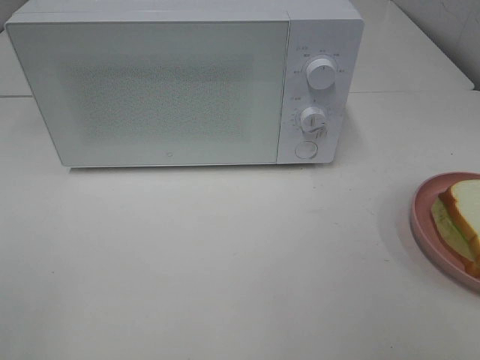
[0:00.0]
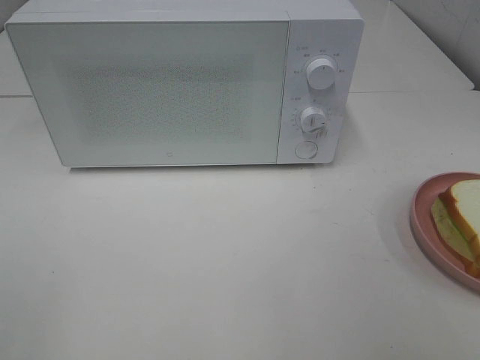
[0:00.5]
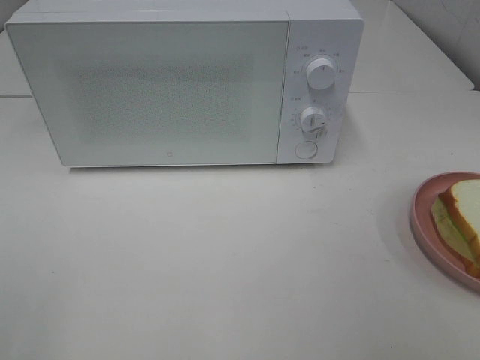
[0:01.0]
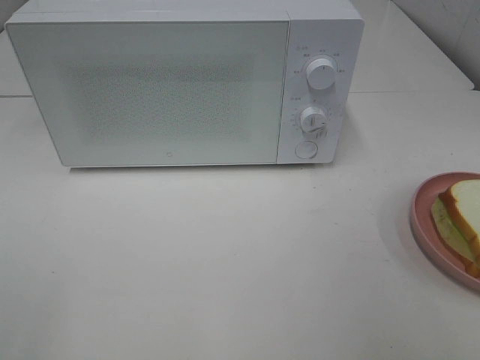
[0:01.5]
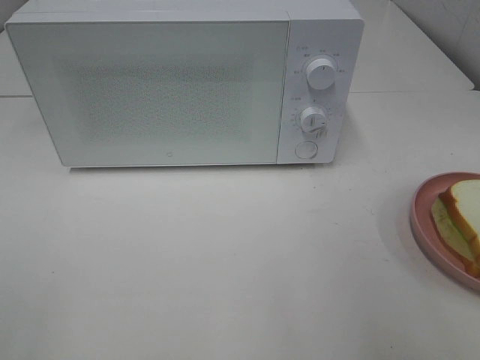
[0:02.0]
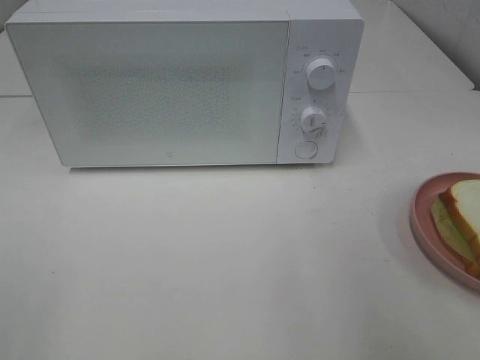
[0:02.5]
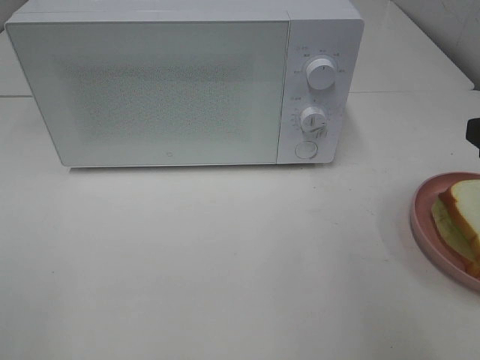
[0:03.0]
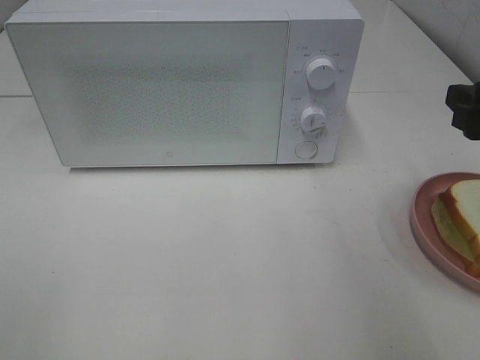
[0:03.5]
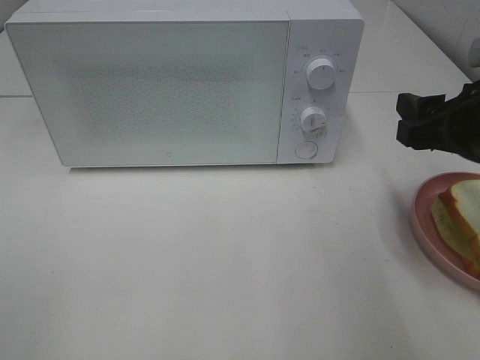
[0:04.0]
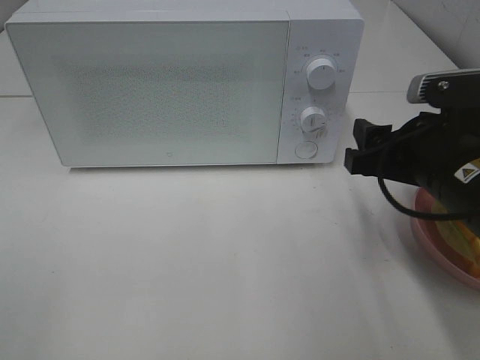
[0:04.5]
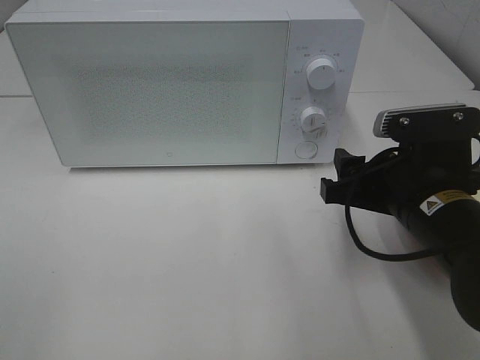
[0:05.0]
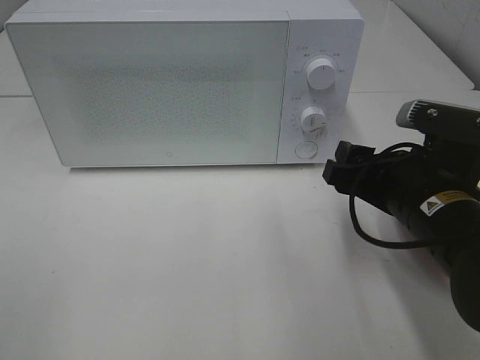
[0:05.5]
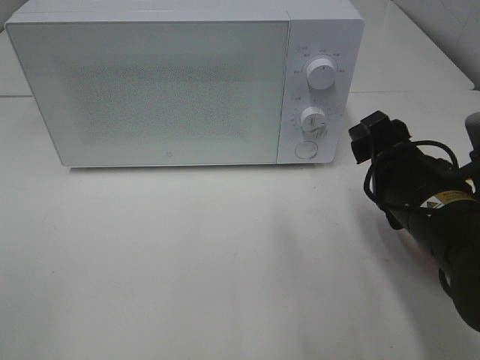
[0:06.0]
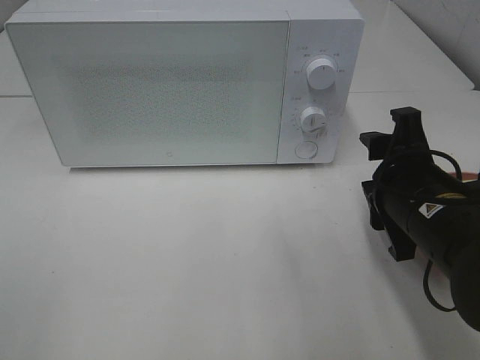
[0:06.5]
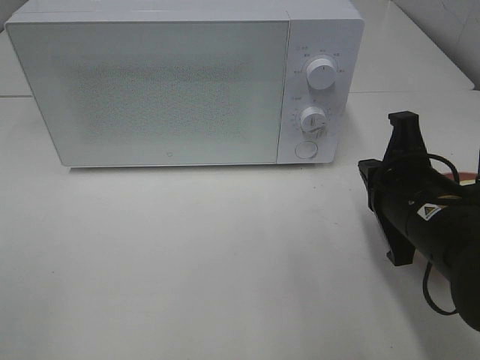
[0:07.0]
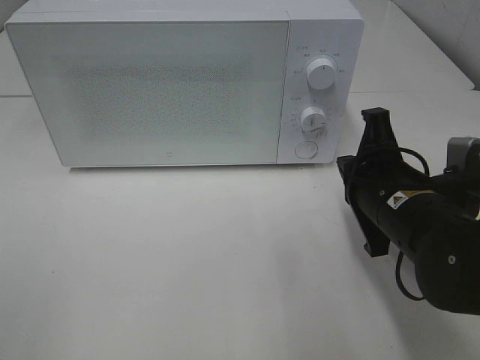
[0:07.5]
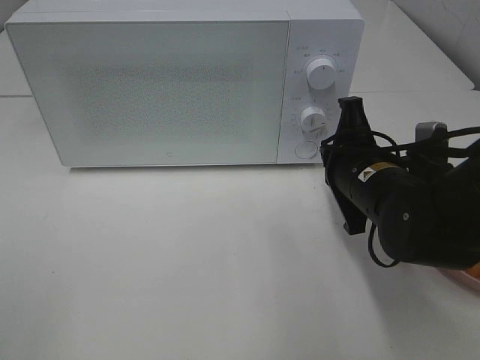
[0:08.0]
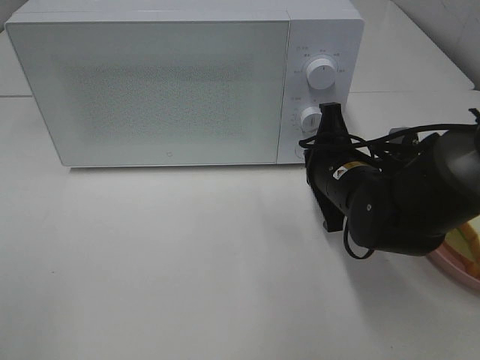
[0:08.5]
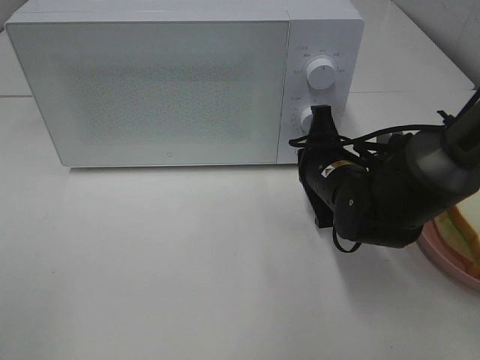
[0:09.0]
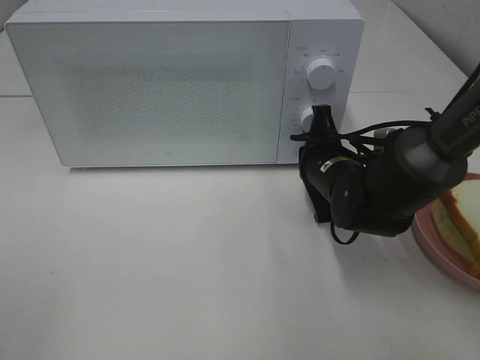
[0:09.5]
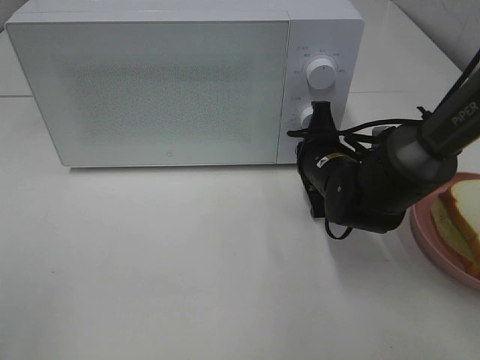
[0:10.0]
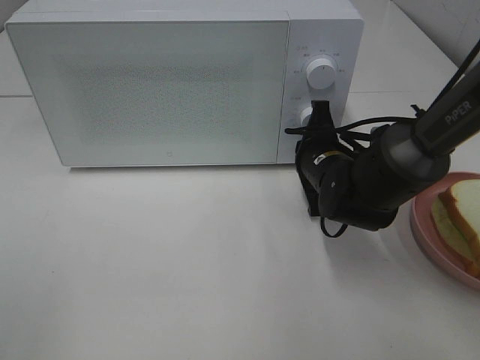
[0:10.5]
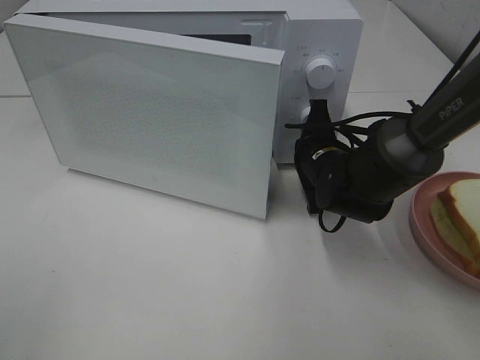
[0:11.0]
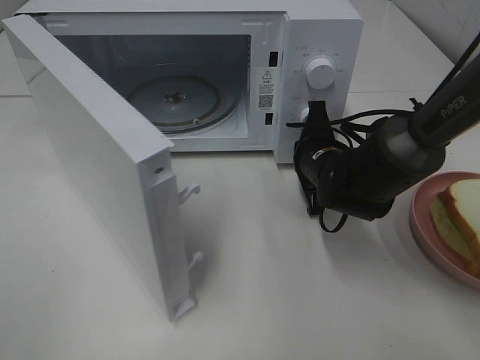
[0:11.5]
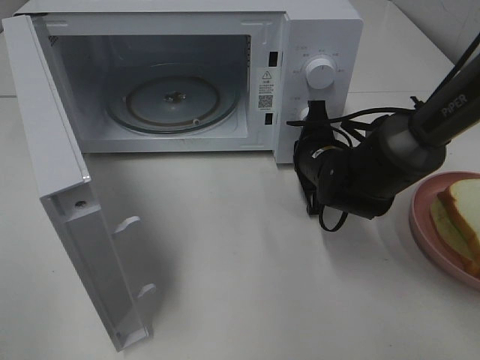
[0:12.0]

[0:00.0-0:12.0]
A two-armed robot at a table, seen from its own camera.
Task of the whole recording: Heat Sandwich.
0:02.0 to 0:04.0: The right gripper moves forward and downward, roughly 15 cm.
0:04.0 to 0:06.0: The right gripper travels to the left and downward by roughly 10 cm.
0:06.0 to 0:08.0: The right gripper shifts some 5 cm forward, and closes up.
0:08.0 to 0:10.0: The right gripper is displaced forward by approximately 5 cm.

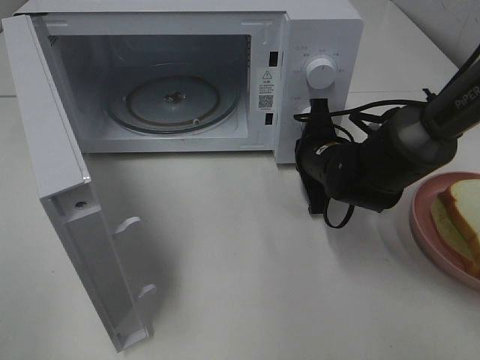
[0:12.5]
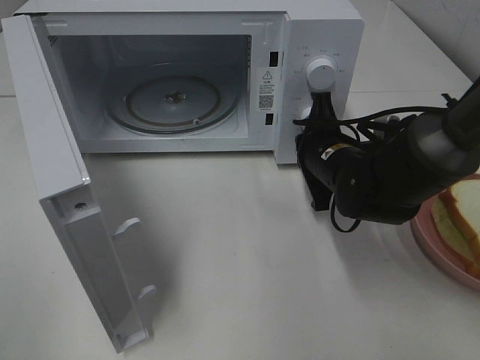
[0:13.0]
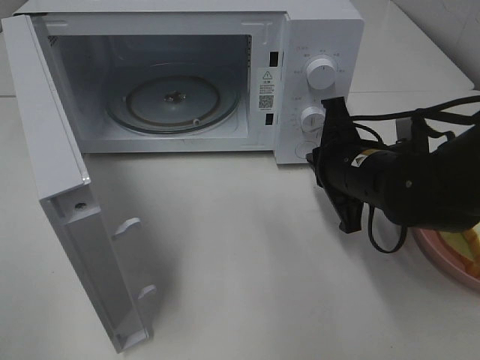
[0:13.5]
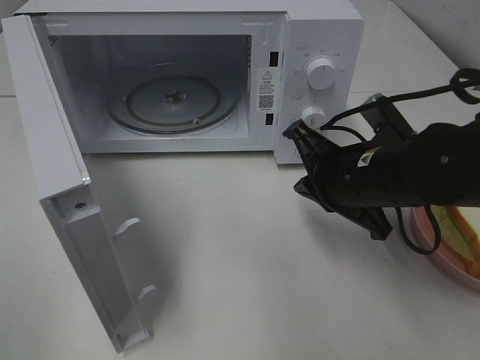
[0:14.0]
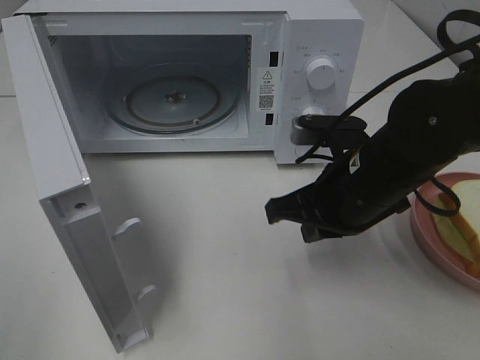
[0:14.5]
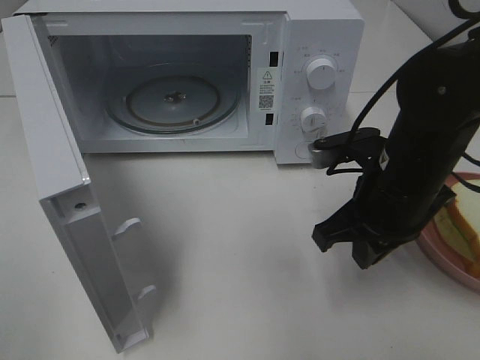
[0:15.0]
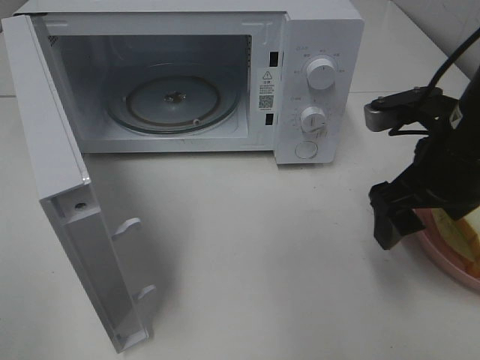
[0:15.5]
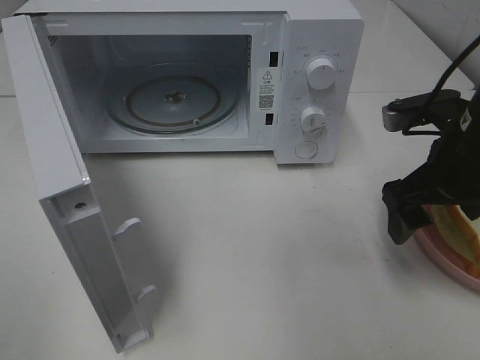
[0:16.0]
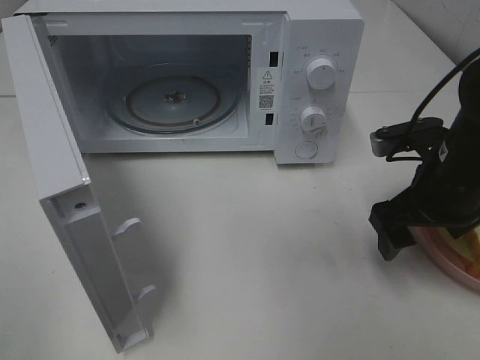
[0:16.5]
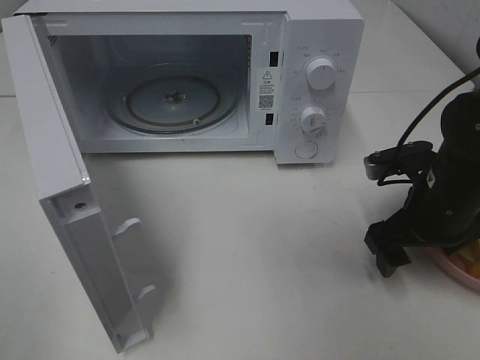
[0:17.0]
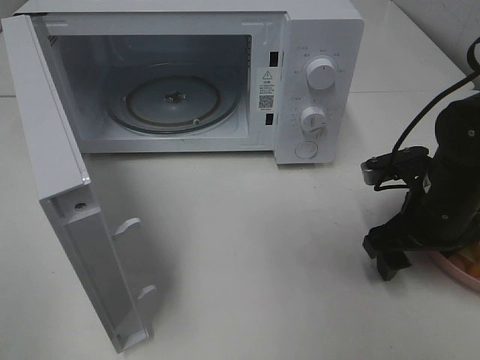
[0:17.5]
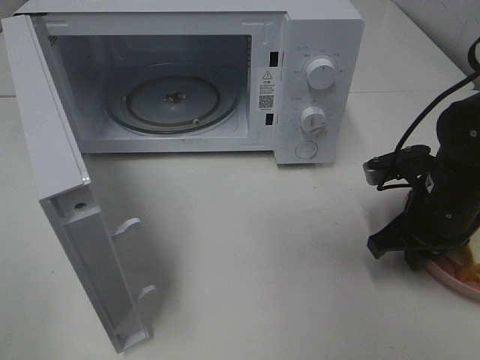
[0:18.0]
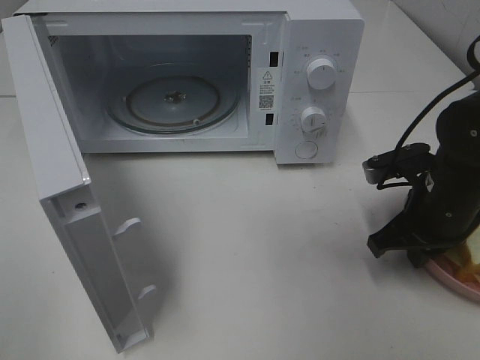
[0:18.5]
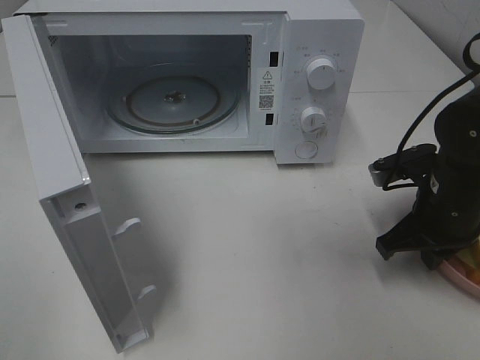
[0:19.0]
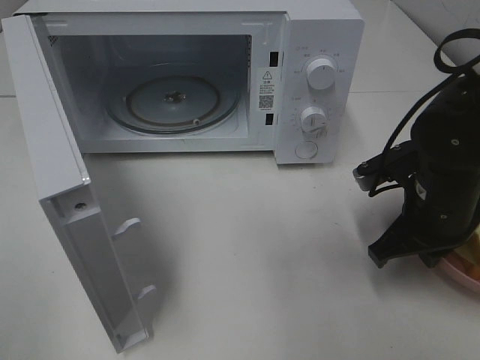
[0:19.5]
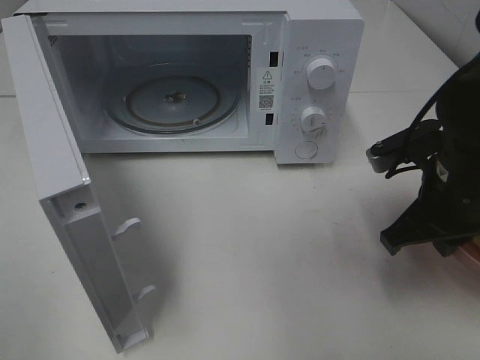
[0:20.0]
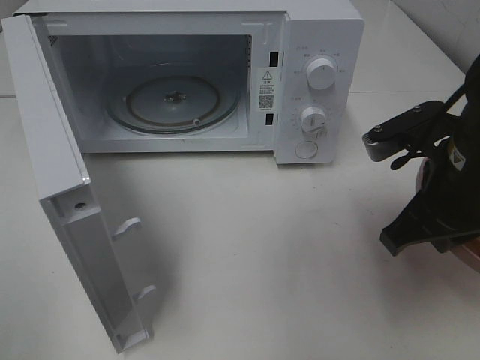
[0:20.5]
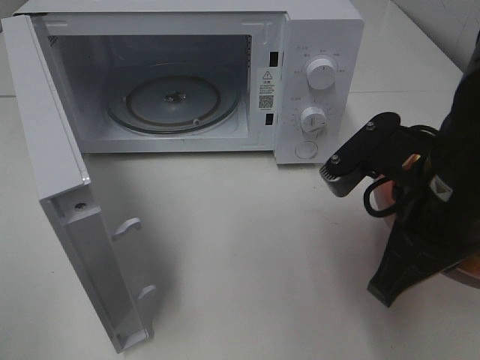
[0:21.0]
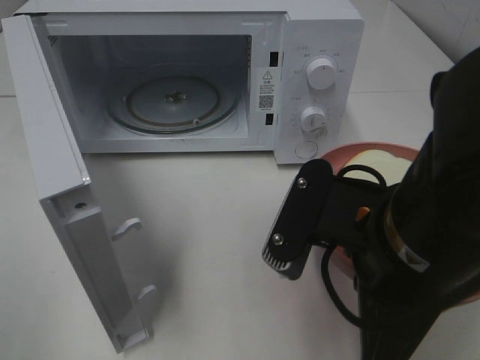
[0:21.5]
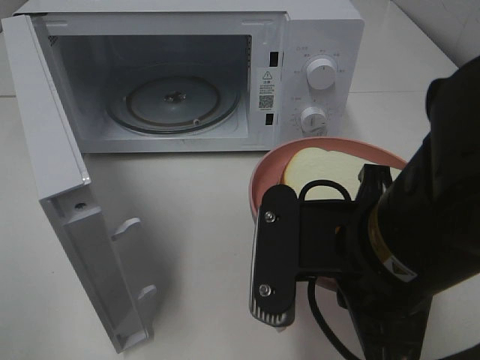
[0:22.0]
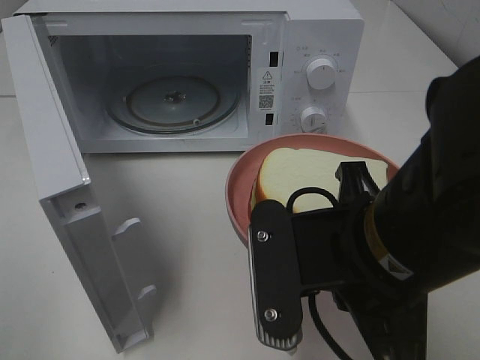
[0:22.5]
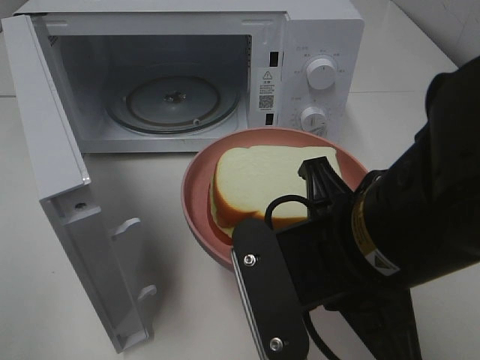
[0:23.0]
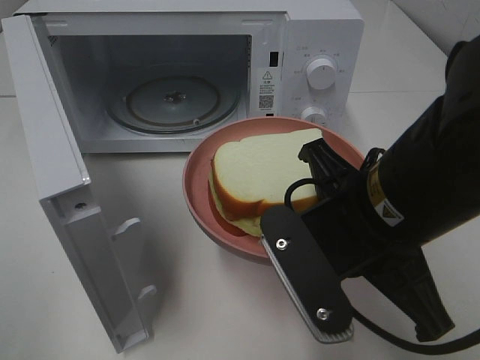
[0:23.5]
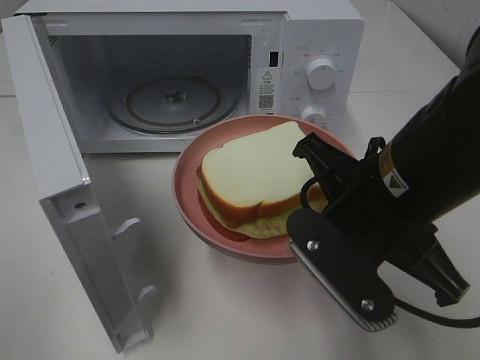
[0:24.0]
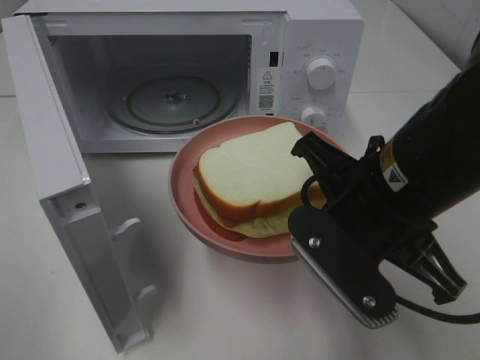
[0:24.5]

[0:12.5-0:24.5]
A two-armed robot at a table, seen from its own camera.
Task of the whole recording: Heat Sandwich.
Step, 0:13.5 to 0:18.0: Right hand: grab the plate with the sandwich.
0:12.5 to 0:14.5: The right gripper shifts about 15 cm backward and upward.
0:14.5 to 0:16.5: The right gripper moves to the right, approximately 10 cm, and opens up.
0:16.5 to 0:18.5: The right gripper closes.
0:18.5 to 0:20.5: The right gripper moves upward and backward, about 10 cm.
0:20.5 to 0:22.5: The right gripper heads to the left and backward, covering some 15 cm.
0:22.5 to 0:24.5: The right gripper shifts some 5 cm forward.

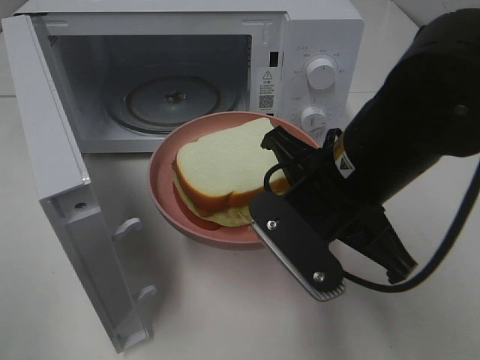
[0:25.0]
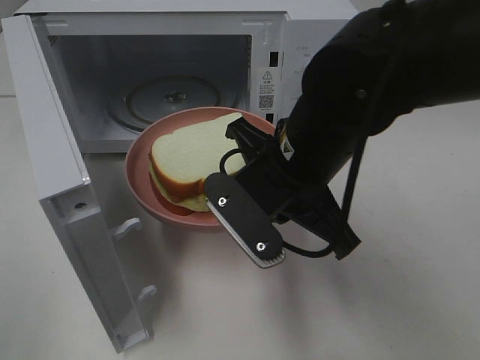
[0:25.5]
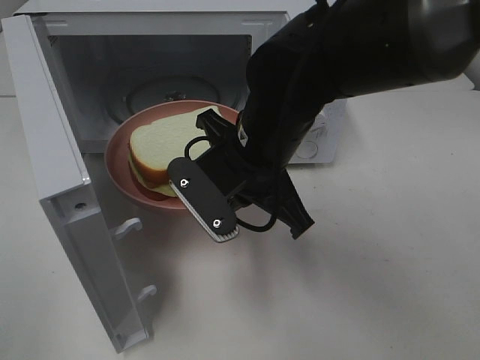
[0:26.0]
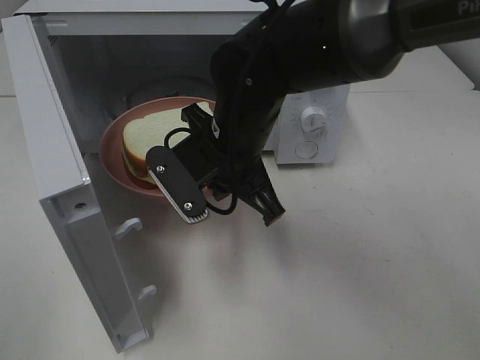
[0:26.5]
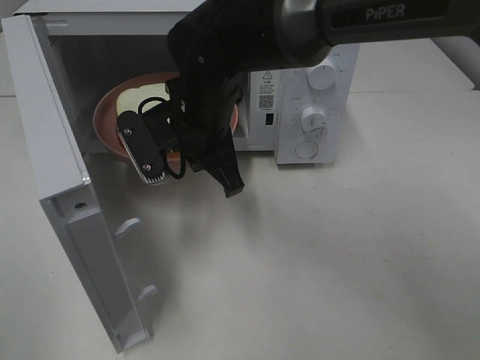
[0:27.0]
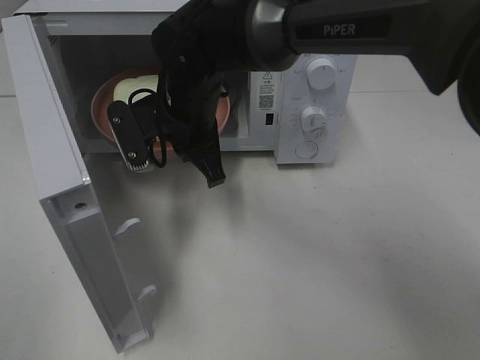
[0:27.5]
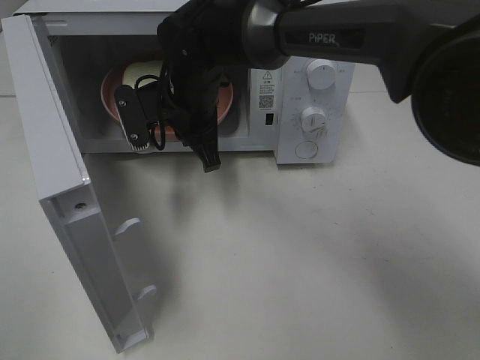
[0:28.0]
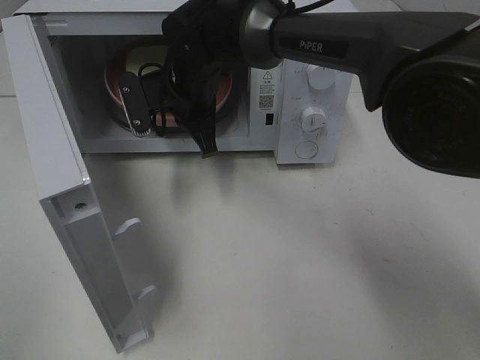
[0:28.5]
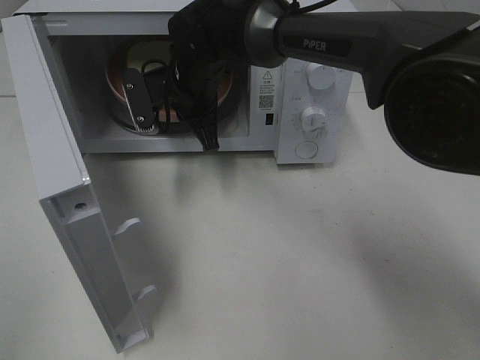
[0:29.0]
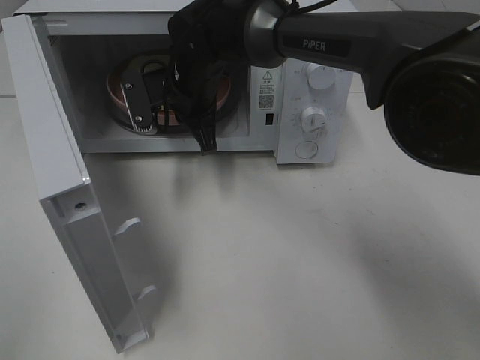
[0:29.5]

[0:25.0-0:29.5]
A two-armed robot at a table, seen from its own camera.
Task of the whole recording: Heat Sandwich.
0:25.0 to 0:27.0: The right gripper shifts approximately 20 cm forward and to the left.
0:27.0 to 0:29.5: The right gripper moves forward, some 10 cm.
